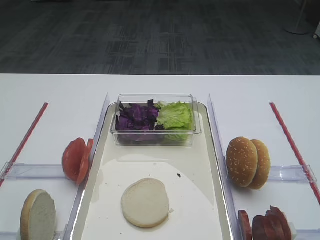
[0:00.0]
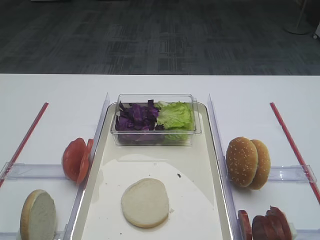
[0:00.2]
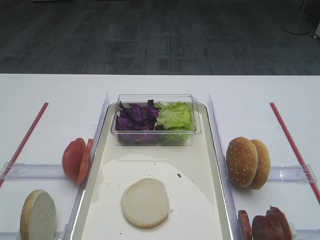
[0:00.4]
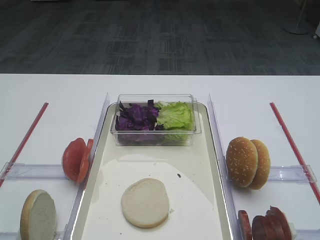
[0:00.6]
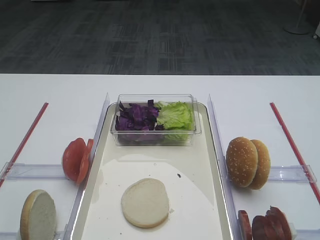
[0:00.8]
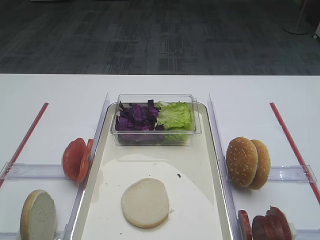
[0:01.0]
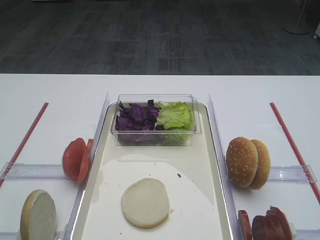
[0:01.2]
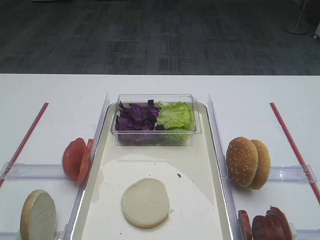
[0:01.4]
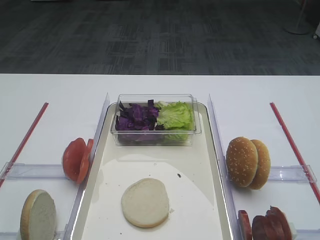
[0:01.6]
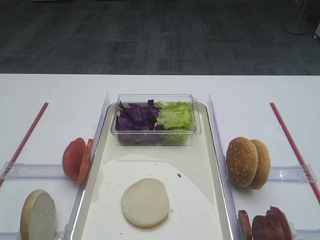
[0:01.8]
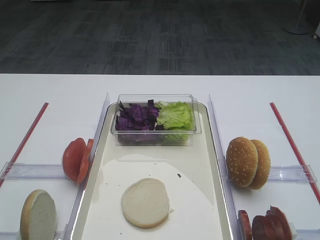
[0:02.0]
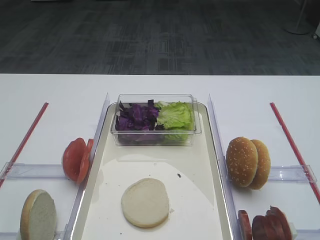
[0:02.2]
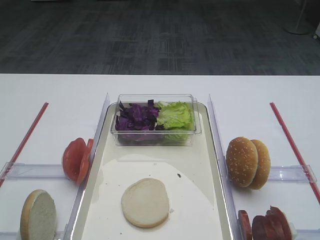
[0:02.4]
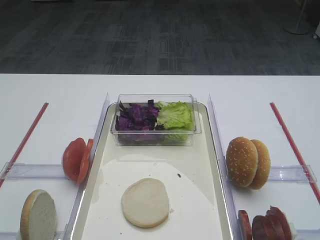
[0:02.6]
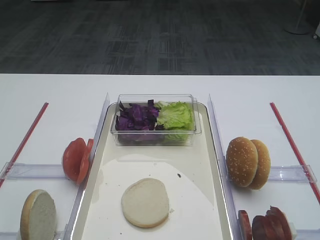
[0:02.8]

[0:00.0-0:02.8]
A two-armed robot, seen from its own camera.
0:00.0 to 0:02.8: Neither gripper changes place.

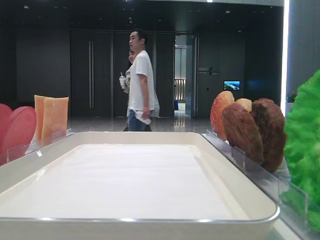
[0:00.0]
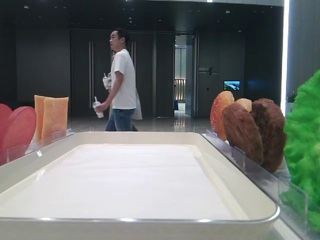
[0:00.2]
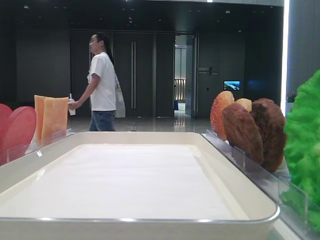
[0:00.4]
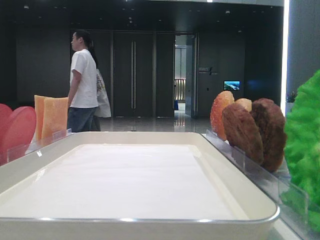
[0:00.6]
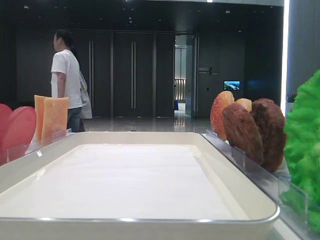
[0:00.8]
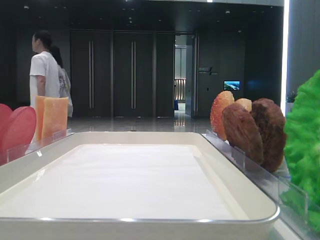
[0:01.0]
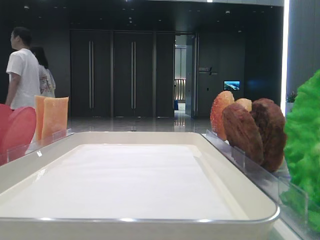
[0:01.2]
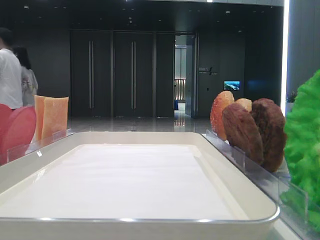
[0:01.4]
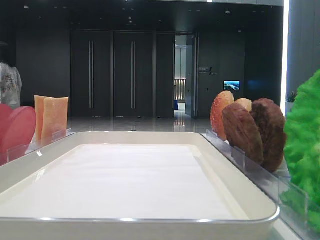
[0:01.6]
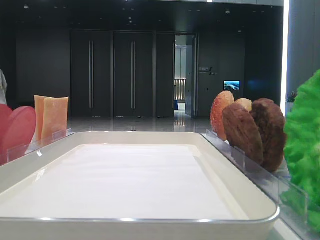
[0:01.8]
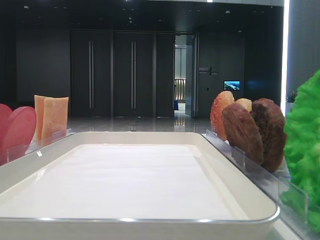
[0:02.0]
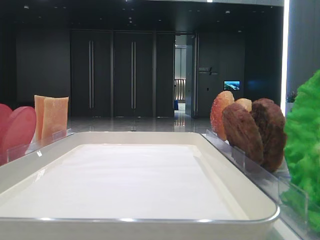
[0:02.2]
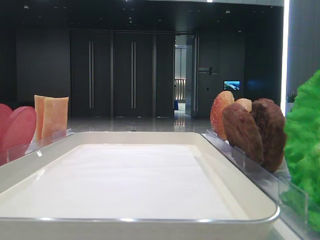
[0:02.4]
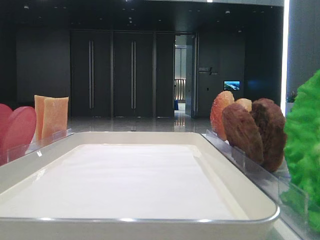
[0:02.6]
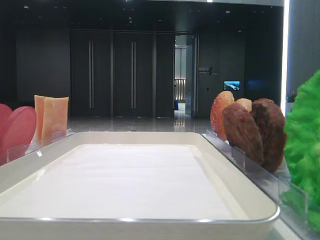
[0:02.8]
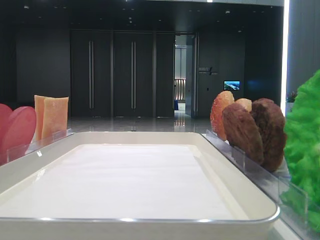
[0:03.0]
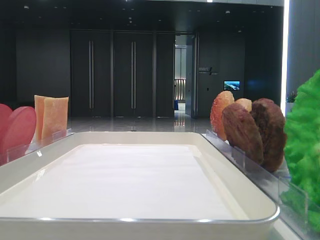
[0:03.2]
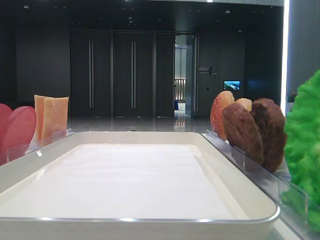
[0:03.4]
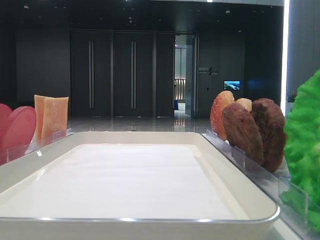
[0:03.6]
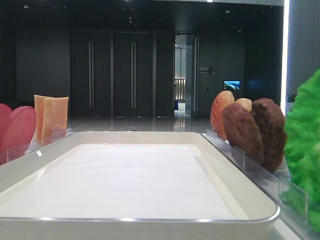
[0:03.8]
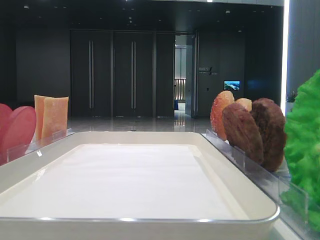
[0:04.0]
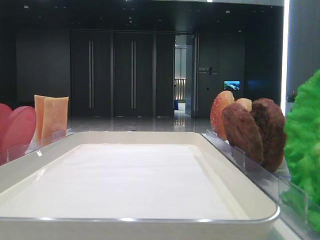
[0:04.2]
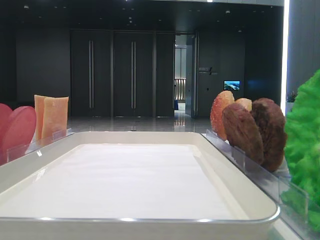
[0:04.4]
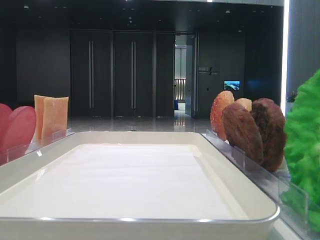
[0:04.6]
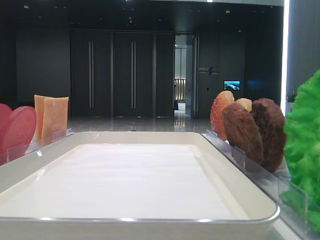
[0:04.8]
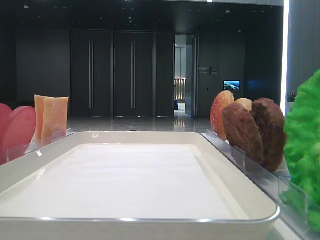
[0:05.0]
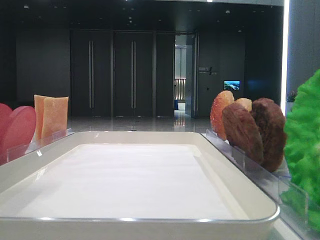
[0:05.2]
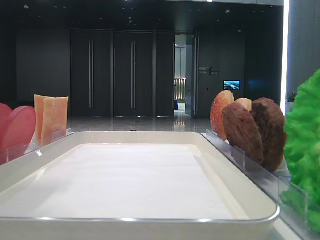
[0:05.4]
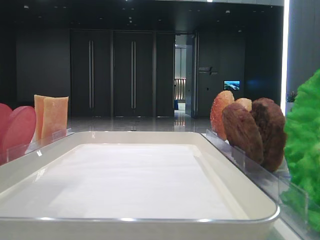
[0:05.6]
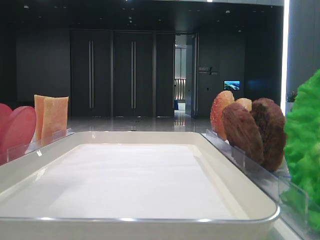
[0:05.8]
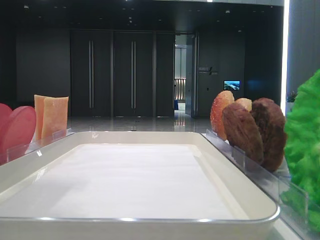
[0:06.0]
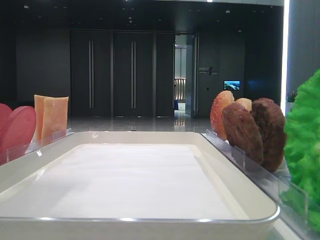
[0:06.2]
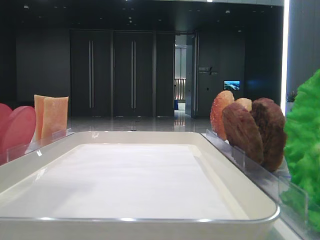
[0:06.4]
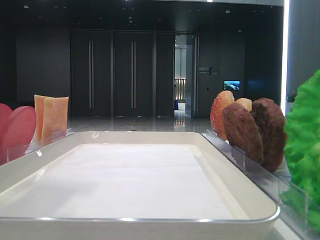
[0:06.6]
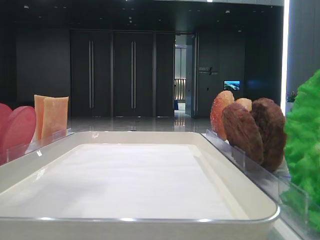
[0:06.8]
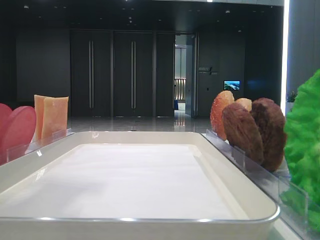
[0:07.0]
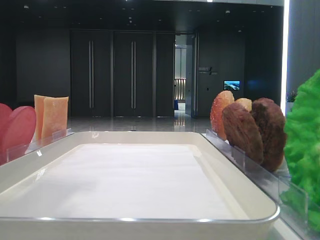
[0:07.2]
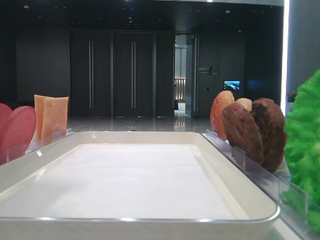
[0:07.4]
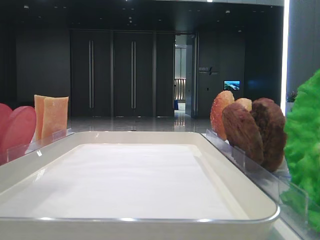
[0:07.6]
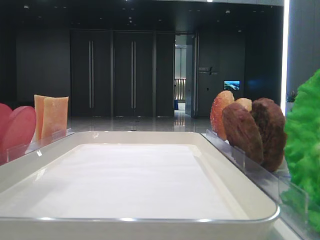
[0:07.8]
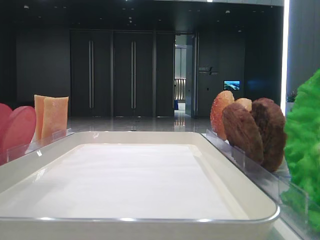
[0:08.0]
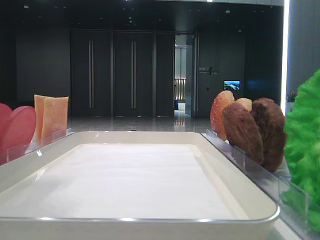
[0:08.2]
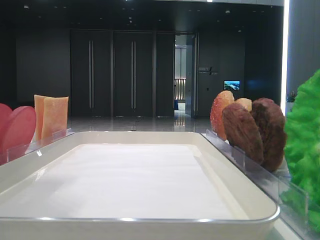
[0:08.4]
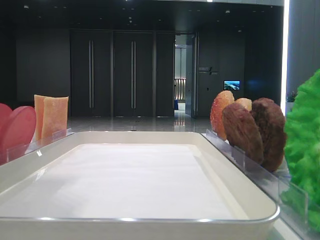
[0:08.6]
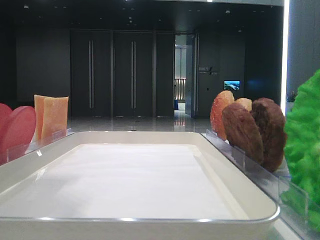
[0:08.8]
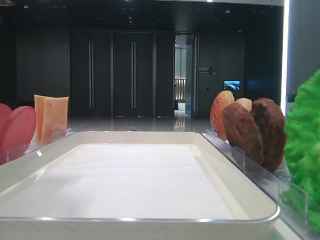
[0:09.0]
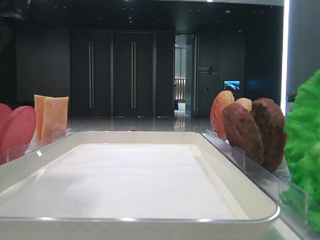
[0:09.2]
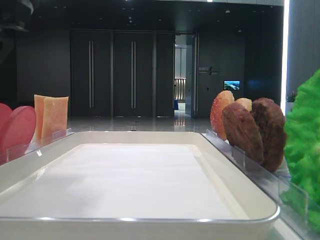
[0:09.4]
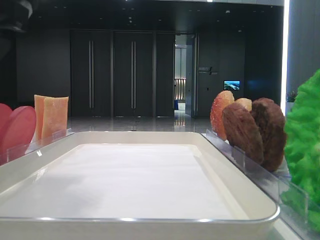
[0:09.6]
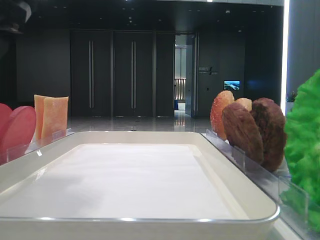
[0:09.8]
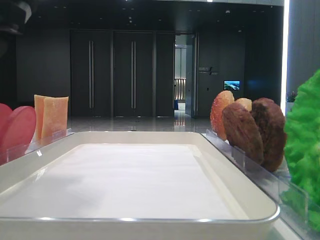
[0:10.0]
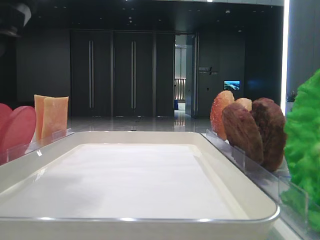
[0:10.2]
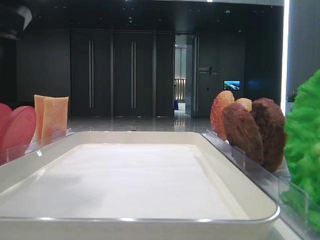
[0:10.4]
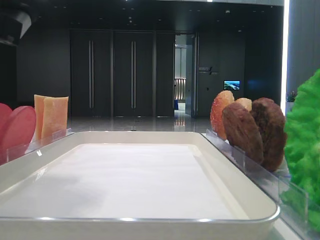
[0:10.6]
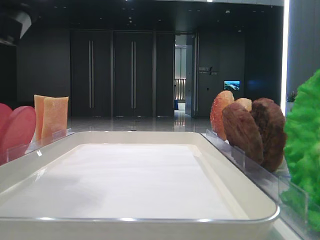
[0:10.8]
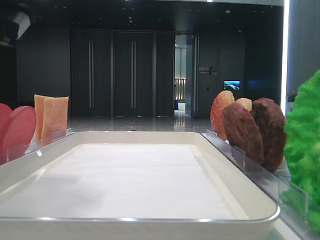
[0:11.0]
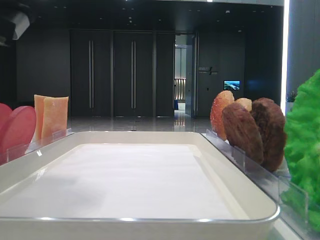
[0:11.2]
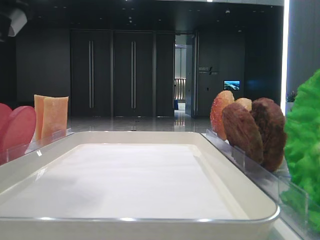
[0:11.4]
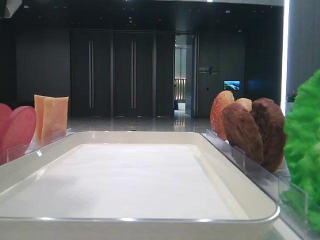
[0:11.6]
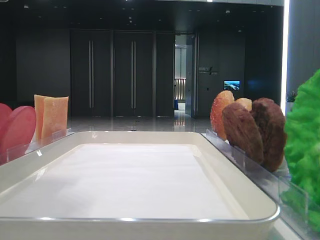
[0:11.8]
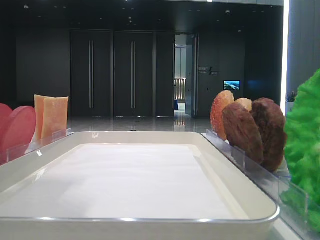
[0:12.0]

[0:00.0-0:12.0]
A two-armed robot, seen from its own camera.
Step, 0:00.0 to 0:11.2: Pick up the bottom bread slice with the left hand.
0:01.6 to 0:03.0: The left gripper opens its fingers.
0:04.4 to 0:06.0: The left gripper is displaced to the right by approximately 10 cm.
0:07.6 to 0:09.0: The left gripper changes place by about 5 cm.

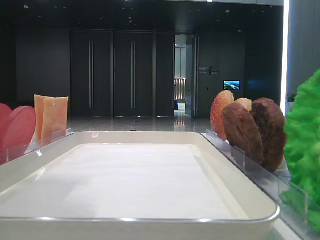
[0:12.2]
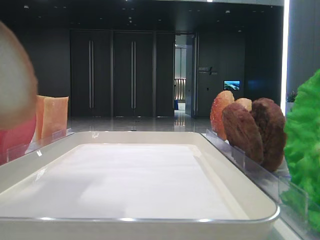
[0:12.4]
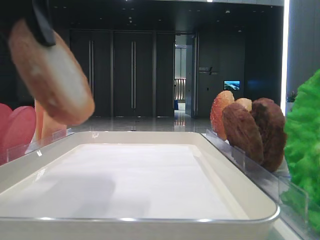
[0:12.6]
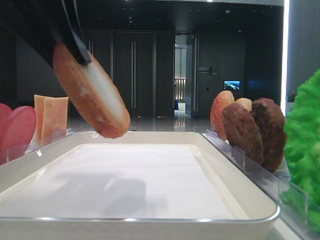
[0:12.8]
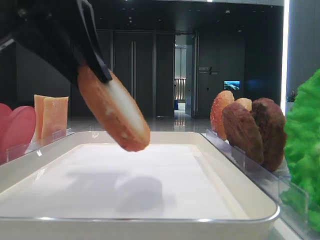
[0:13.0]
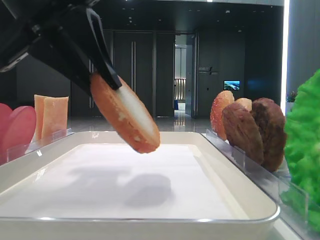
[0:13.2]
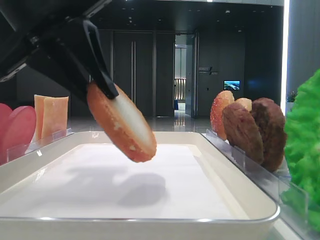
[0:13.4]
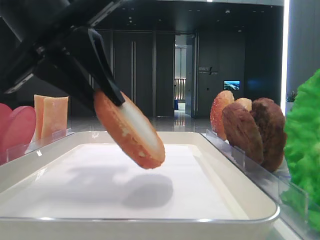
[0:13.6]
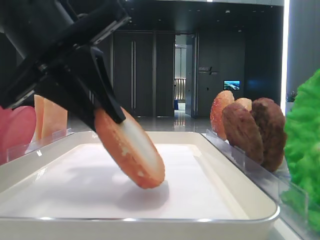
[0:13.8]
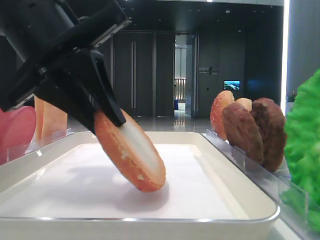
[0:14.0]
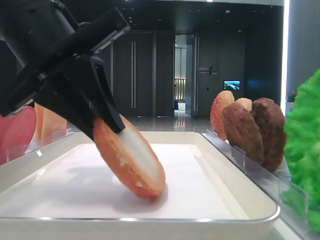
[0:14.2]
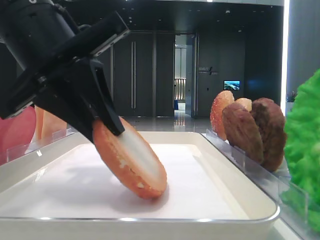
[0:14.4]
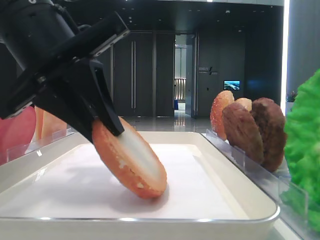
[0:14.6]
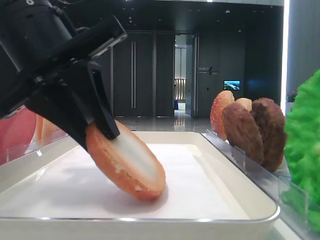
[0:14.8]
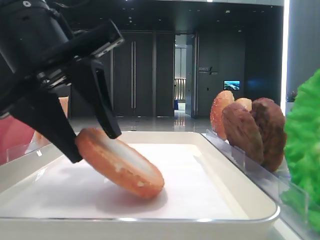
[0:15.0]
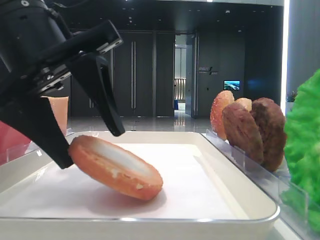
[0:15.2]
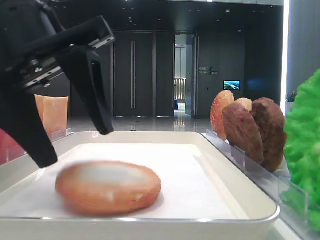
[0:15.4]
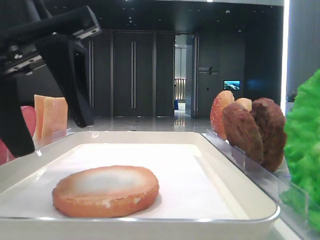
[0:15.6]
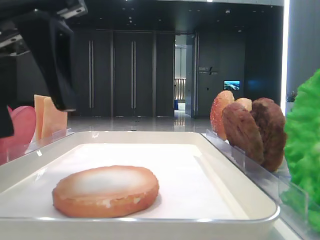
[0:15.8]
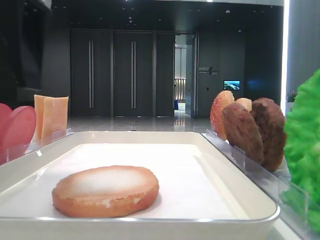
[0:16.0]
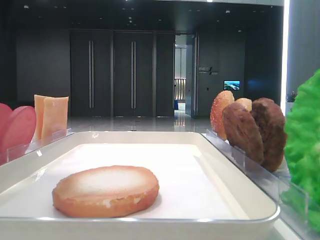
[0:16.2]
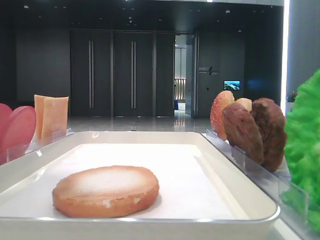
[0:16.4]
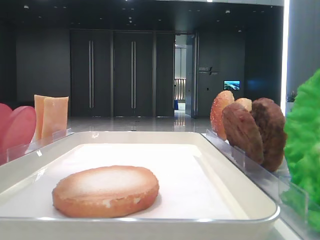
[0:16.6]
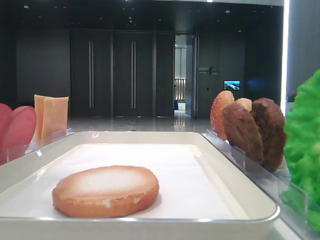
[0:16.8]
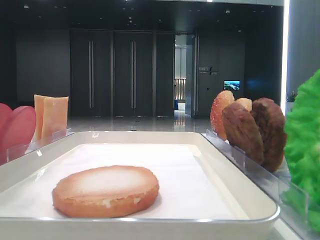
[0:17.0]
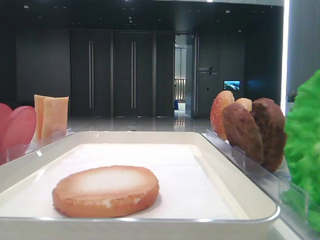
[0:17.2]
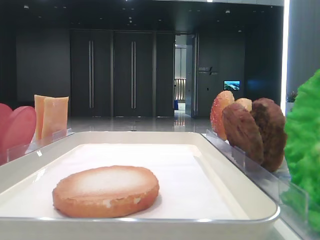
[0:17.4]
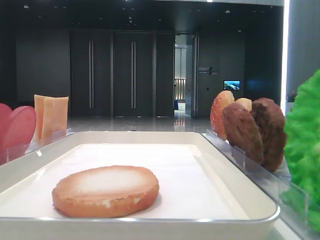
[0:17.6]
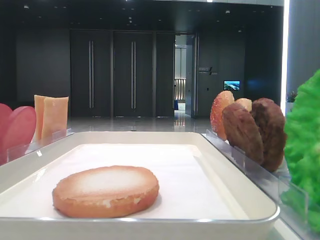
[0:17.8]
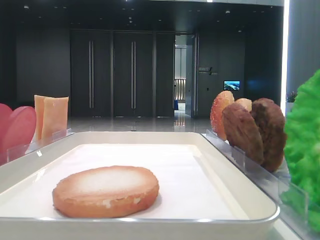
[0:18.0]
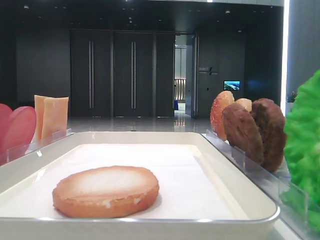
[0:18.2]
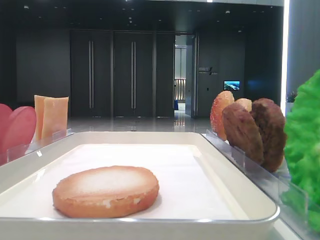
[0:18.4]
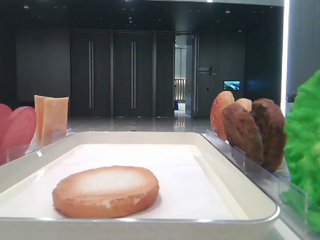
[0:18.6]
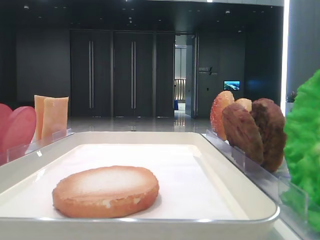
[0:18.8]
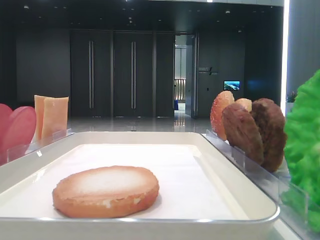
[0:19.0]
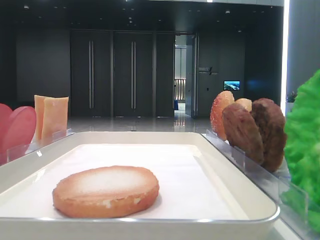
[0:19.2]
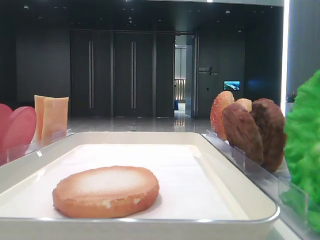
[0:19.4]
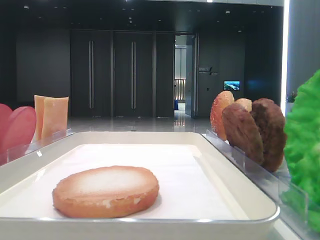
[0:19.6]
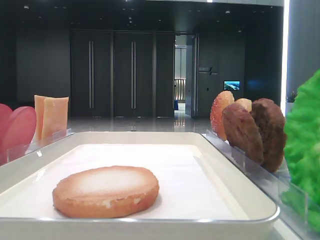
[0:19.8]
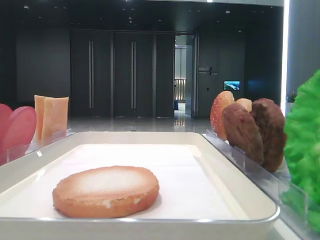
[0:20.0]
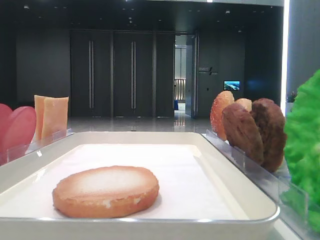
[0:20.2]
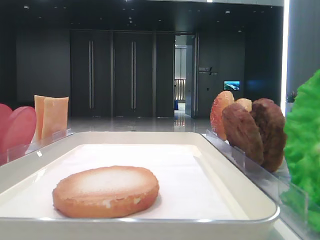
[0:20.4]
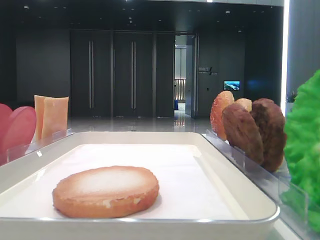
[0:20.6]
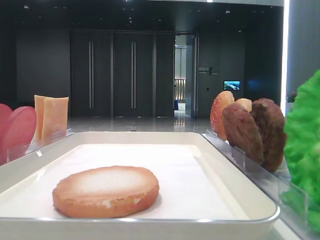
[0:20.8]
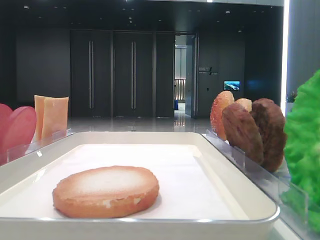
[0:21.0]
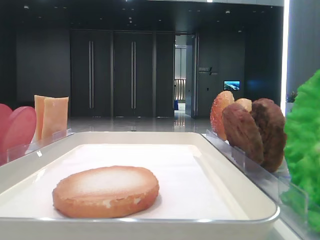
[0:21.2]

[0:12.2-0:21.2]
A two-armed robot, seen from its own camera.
Step, 0:12.2 to 0:15.2: Place the bottom bread slice on the tray with the left hand.
0:12.2 to 0:13.8: The left gripper is displaced downward by about 10 cm.
0:13.8 to 0:15.2: The left gripper opens its fingers.
0:15.2 to 0:16.6: The left gripper goes some 15 cm upward and to the left.
0:16.6 to 0:18.2: The left gripper heads backward and to the left, covering about 20 cm.
0:19.8 to 0:21.2: Both grippers stay put.
